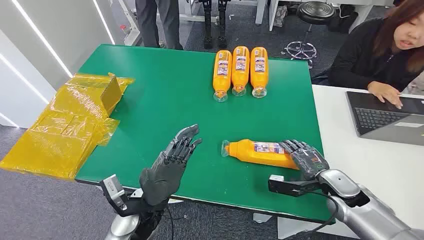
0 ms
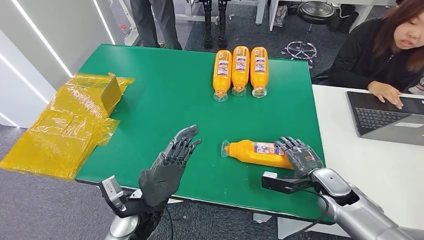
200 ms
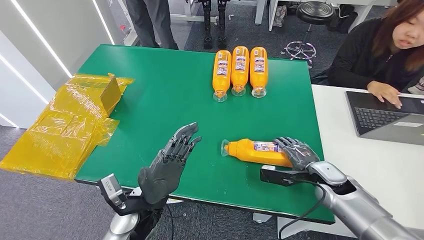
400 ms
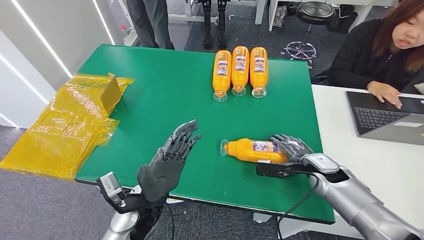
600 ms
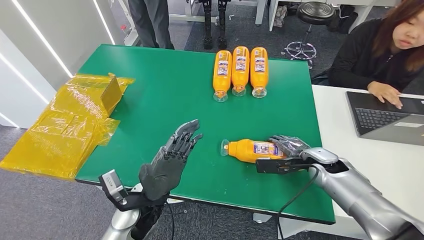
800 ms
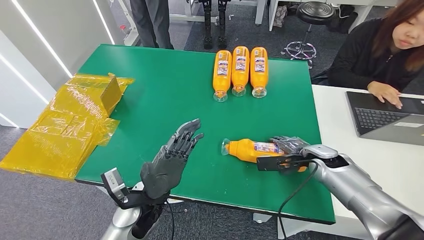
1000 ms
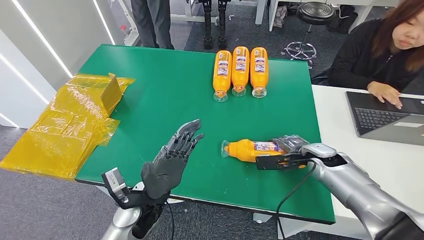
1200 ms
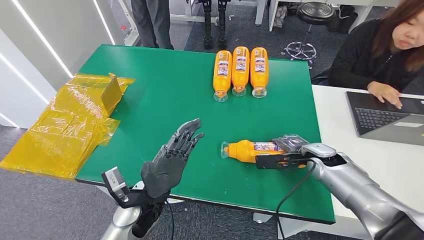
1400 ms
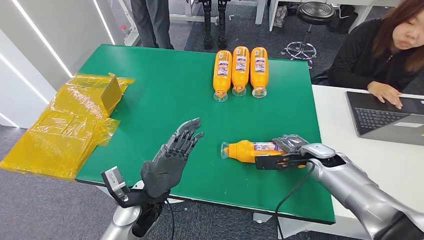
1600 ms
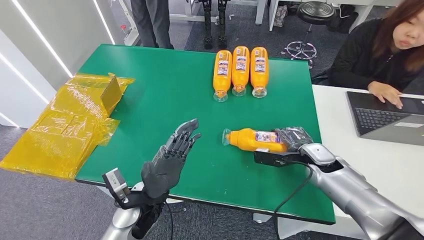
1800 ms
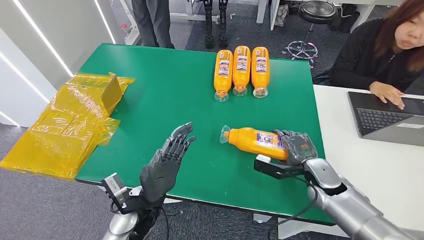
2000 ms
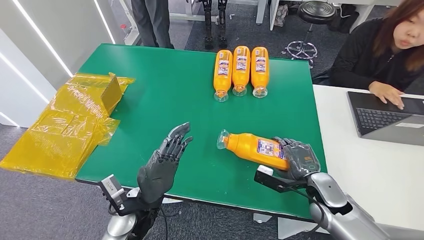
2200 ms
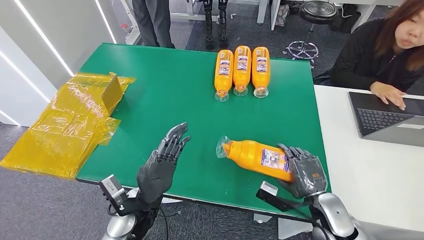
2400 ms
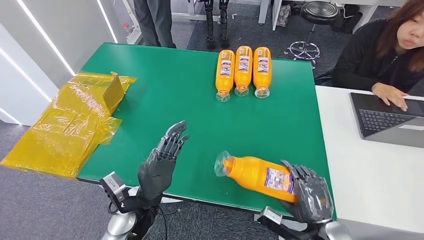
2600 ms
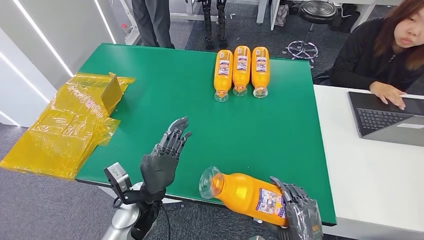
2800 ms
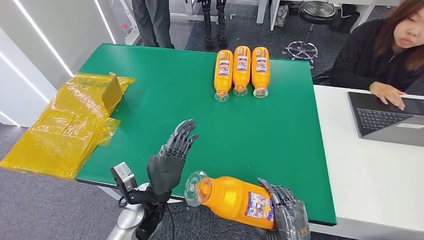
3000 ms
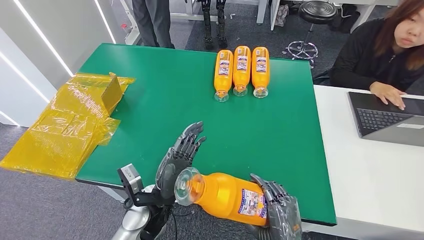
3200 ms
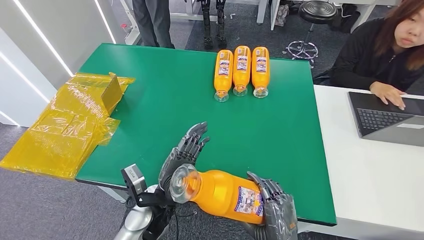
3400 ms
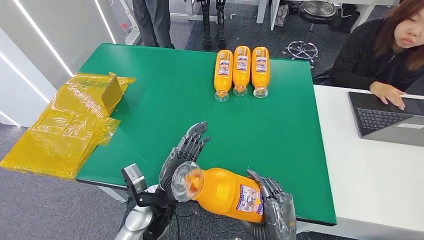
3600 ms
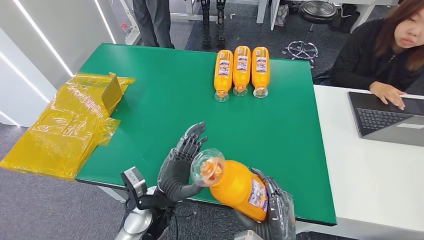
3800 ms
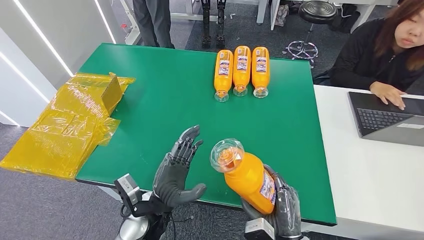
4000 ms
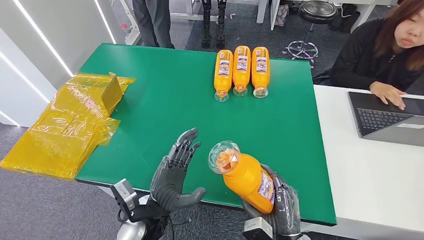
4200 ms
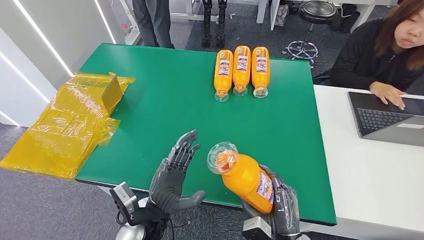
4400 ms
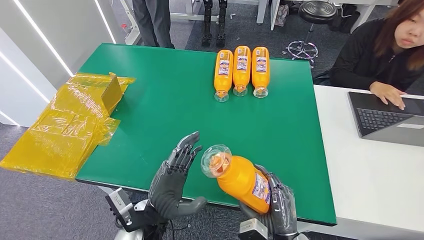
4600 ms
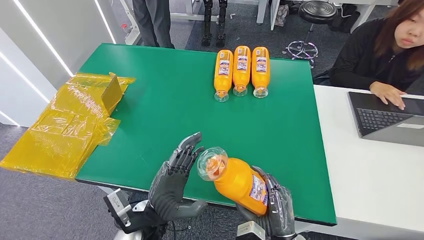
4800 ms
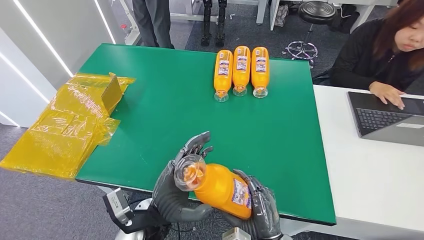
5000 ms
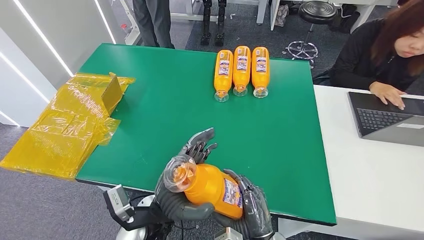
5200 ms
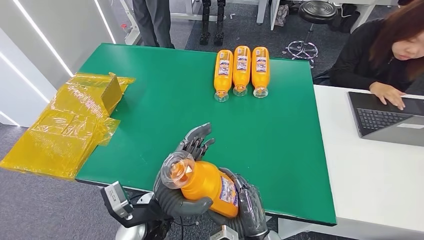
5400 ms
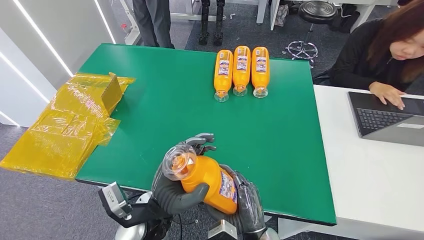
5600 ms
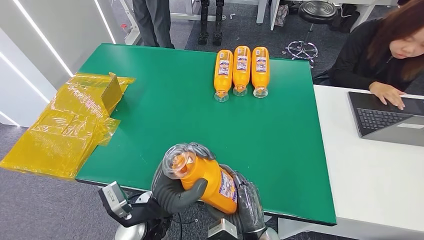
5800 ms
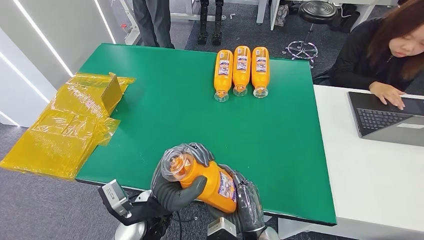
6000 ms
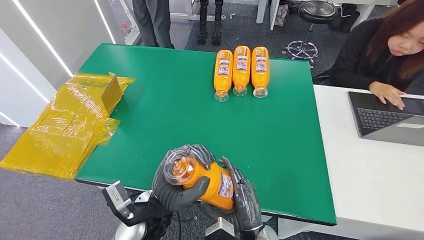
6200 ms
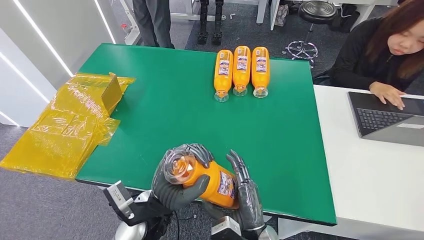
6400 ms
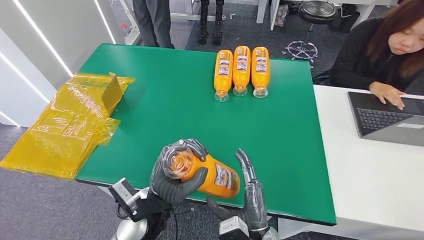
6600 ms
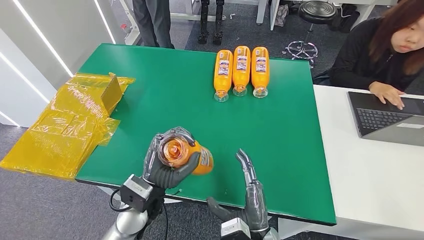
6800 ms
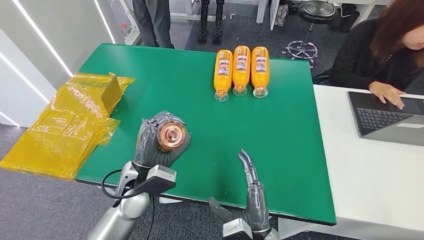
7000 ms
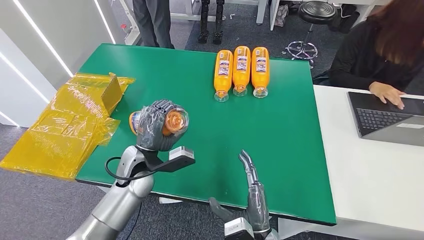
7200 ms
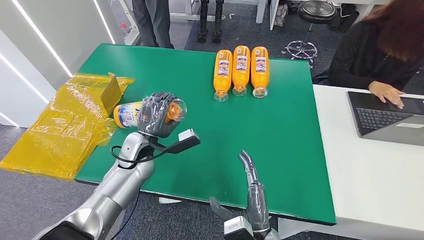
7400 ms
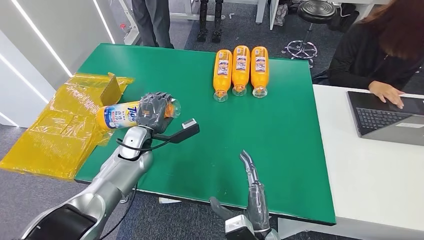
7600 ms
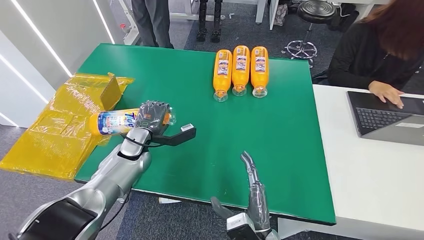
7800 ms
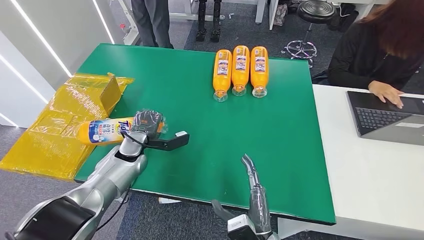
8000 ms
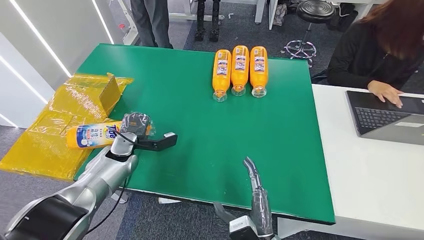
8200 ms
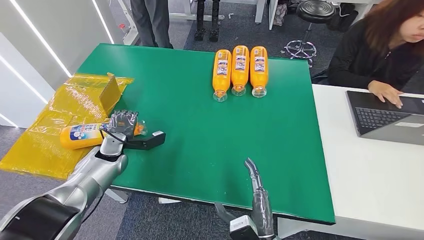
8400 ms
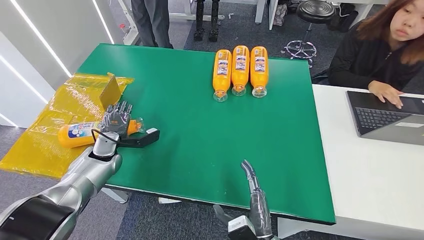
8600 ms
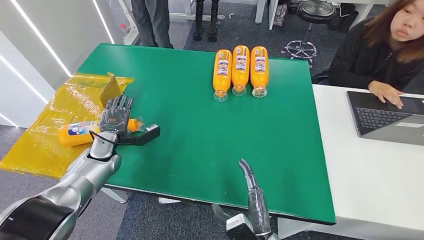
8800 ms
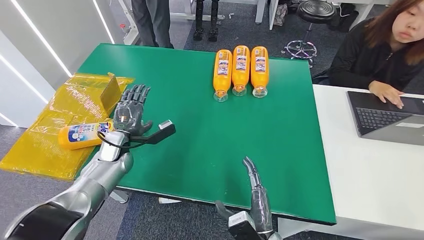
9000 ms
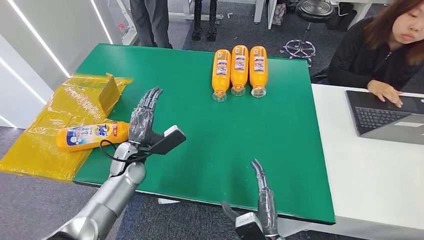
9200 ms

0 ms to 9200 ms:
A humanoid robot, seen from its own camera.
Step, 0 ms to 3800 ms: Pick up the bottle from the table.
Step, 4000 ms to 9200 ms: Turn the bottle to the front side.
1600 ms to 3000 ms: The right hand heads backward, covering roughly 25 cm.
4600 ms to 6200 ms: The right hand is displaced to the left by roughly 10 cm.
6200 ms to 7600 ms: The left hand heads forward and to the left, covering about 20 cm.
7600 ms to 9200 ms: The left hand travels to the left and back again, some 10 cm each way.

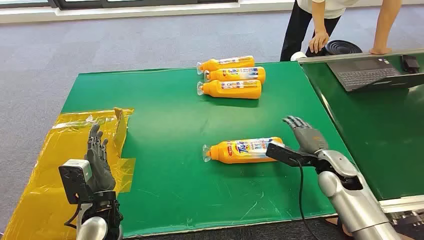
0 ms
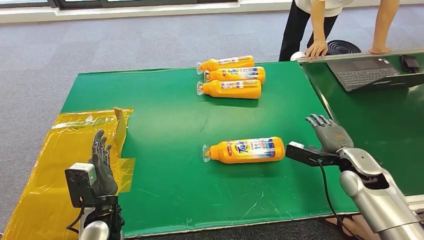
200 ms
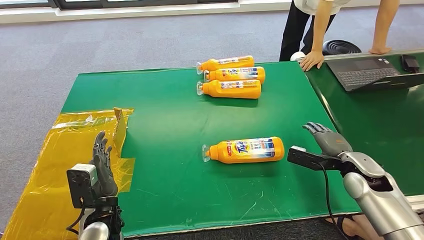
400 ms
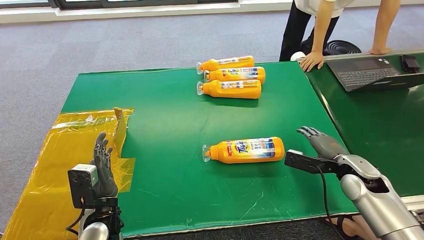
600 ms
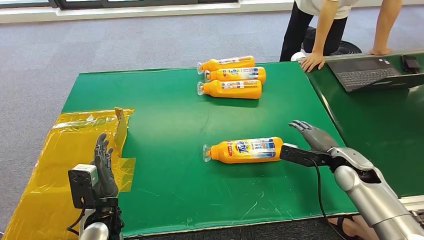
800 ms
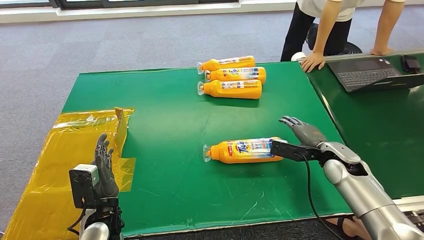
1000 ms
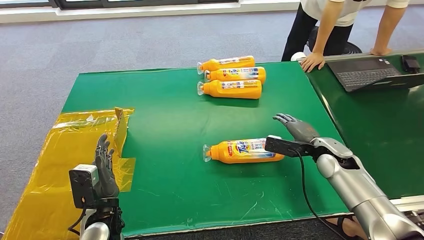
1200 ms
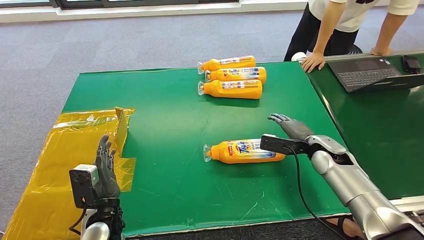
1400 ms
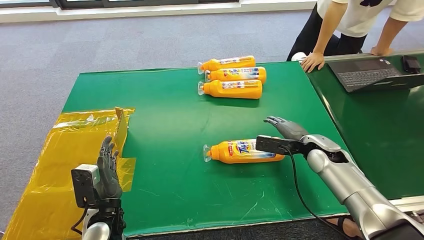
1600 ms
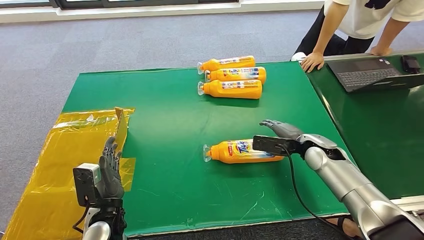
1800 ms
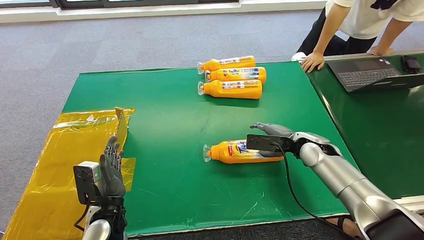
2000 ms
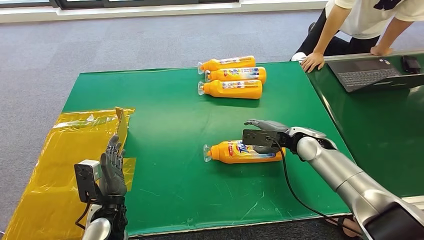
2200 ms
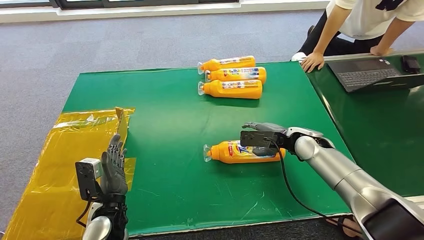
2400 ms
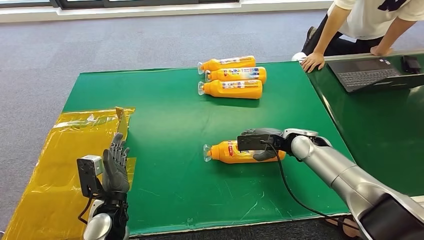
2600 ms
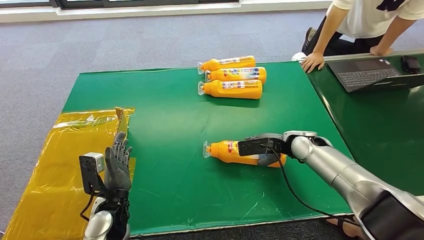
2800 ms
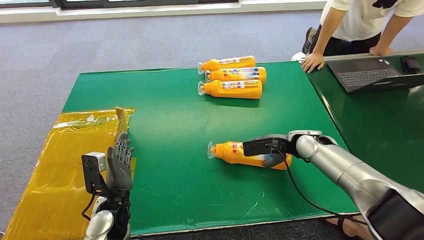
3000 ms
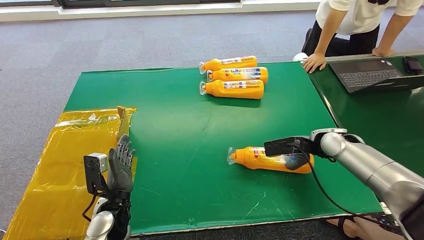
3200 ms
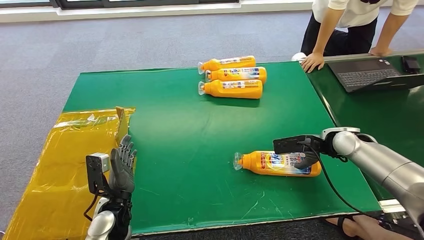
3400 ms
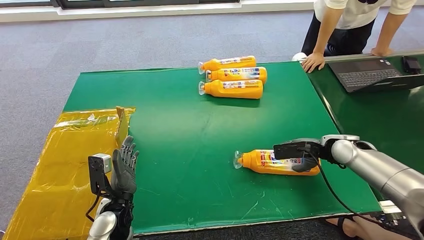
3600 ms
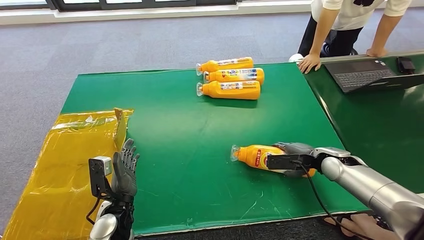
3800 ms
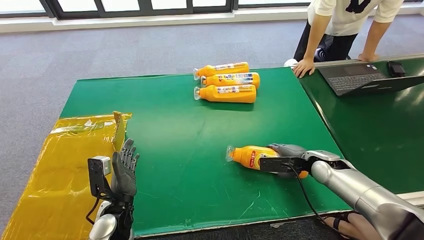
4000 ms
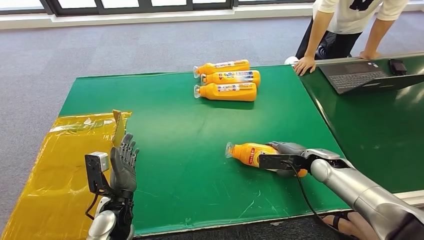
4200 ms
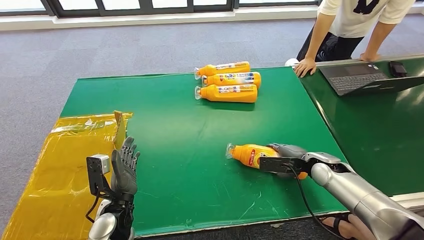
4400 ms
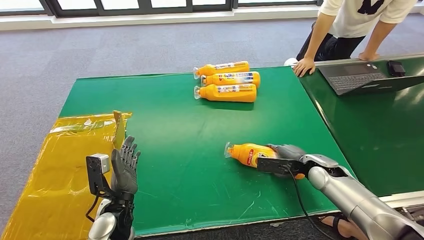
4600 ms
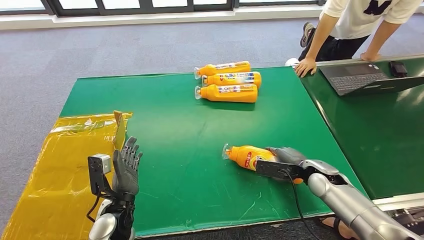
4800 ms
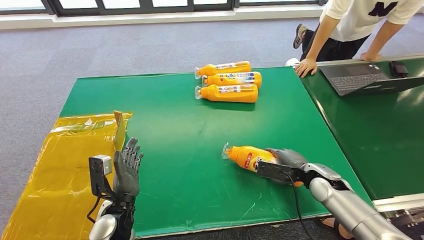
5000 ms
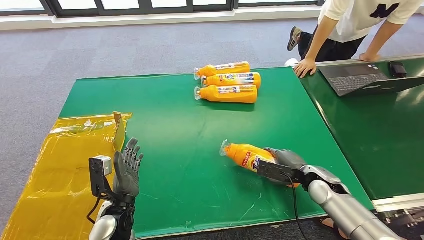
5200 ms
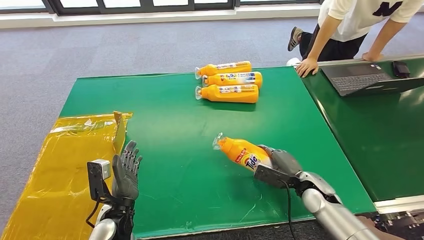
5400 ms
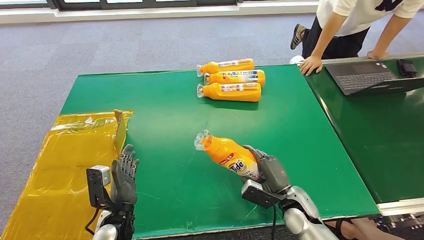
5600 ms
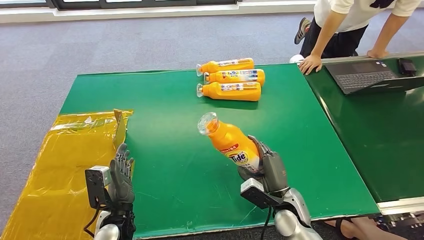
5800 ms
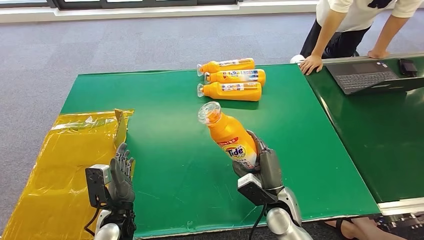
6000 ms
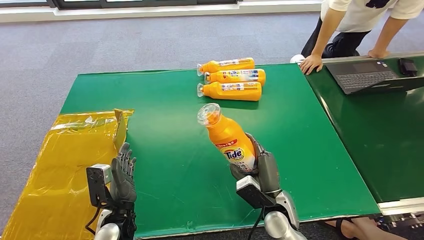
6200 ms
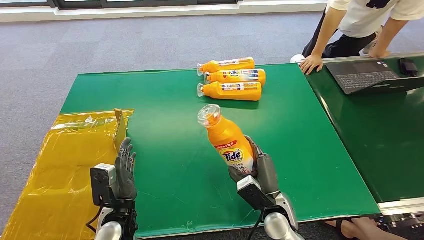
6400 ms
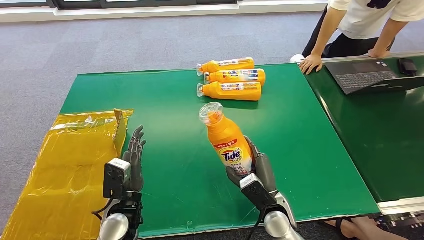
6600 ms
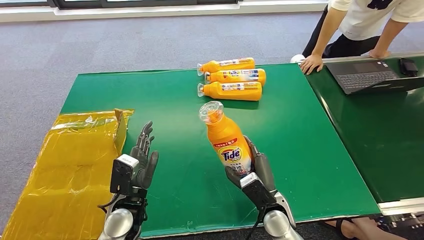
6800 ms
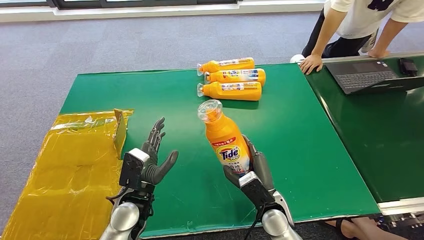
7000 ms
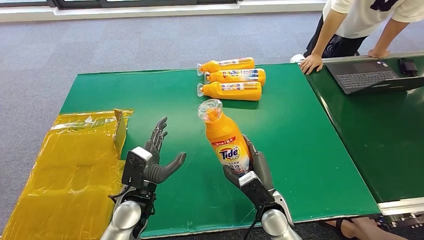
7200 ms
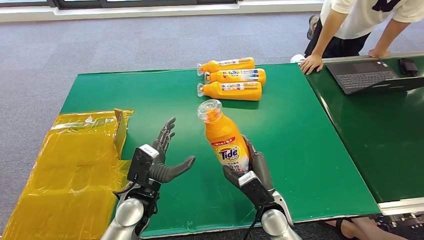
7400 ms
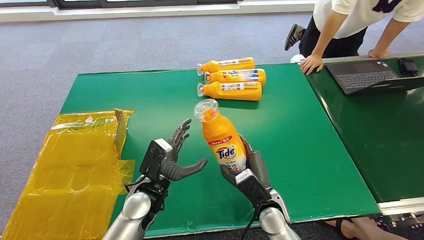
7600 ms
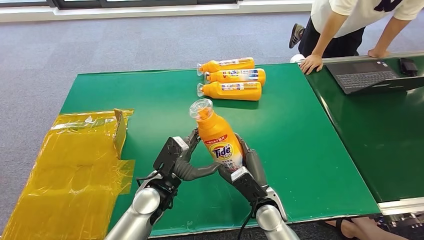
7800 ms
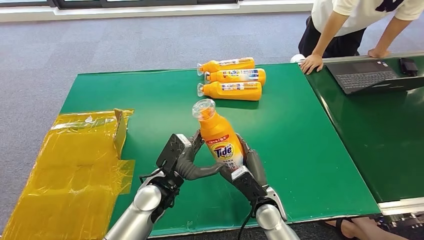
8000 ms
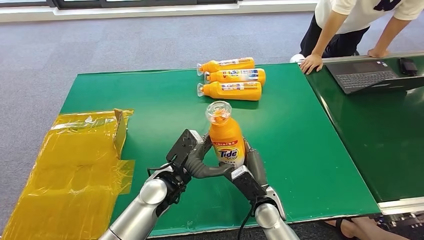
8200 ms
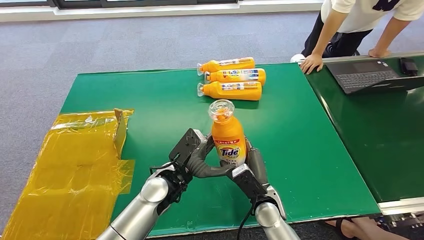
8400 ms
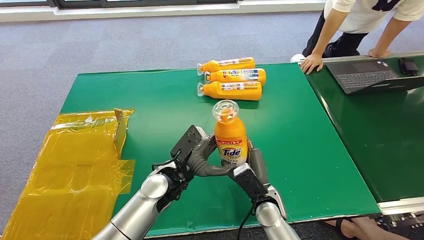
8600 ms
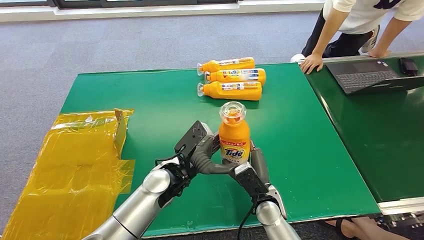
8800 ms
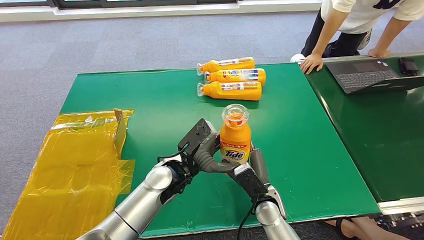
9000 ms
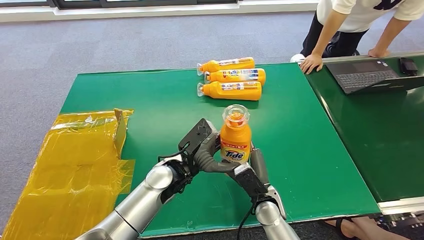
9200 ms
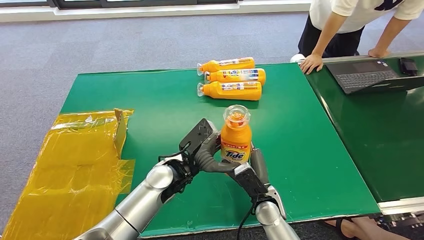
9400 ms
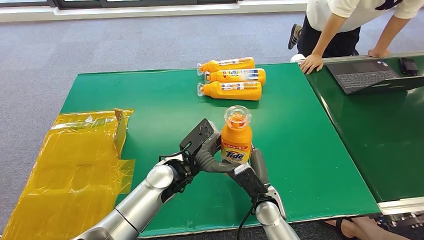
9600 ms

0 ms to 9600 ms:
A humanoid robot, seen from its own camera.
Step, 0 ms to 5800 ms: Pick up the bottle from the table.
6400 ms to 8000 ms: The left hand moves to the right and forward, roughly 10 cm.
8000 ms to 9600 ms: The left hand ends up roughly 5 cm from where it was.
